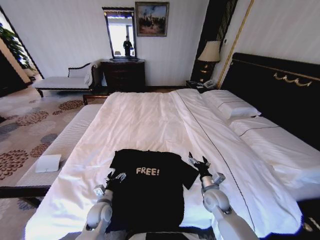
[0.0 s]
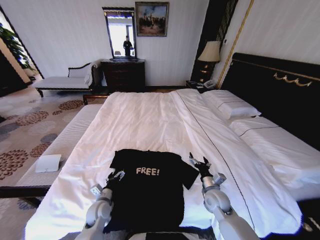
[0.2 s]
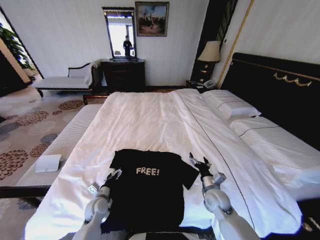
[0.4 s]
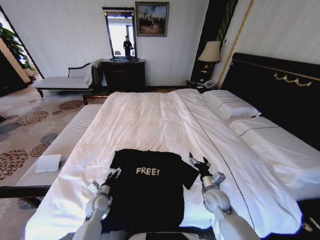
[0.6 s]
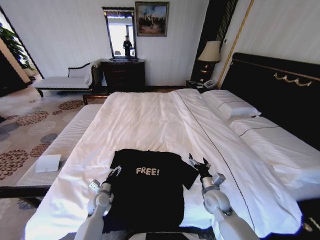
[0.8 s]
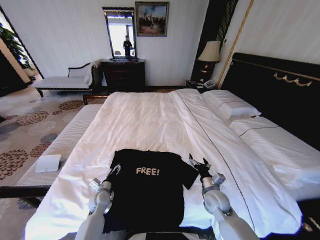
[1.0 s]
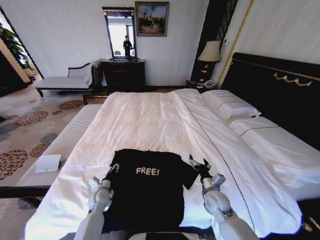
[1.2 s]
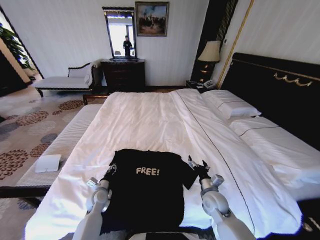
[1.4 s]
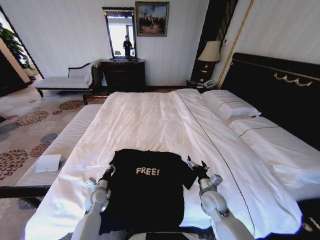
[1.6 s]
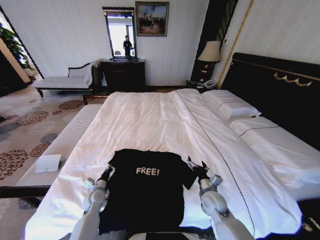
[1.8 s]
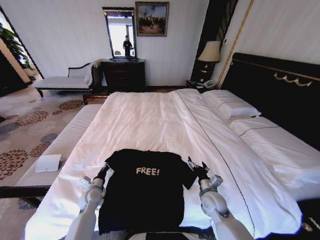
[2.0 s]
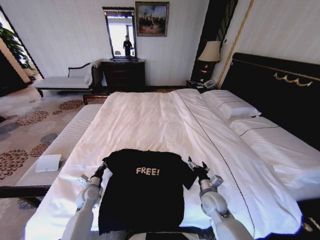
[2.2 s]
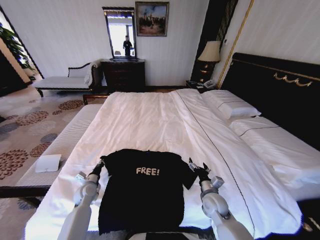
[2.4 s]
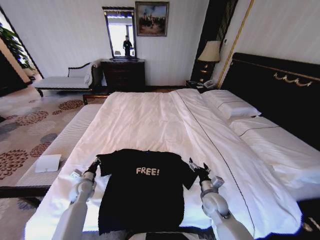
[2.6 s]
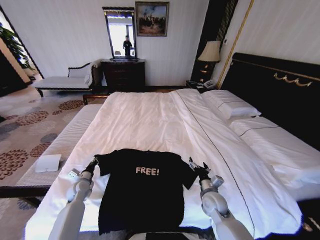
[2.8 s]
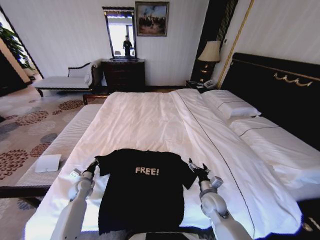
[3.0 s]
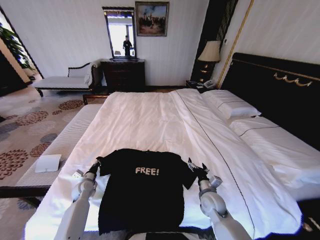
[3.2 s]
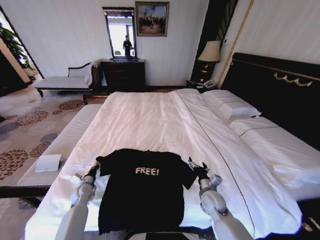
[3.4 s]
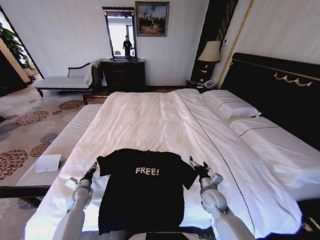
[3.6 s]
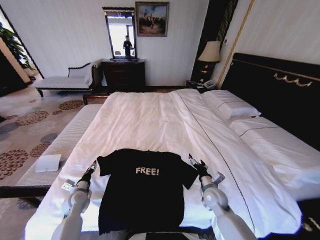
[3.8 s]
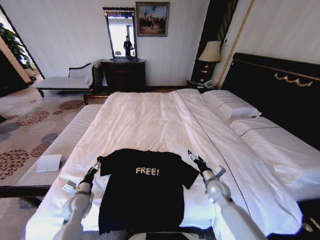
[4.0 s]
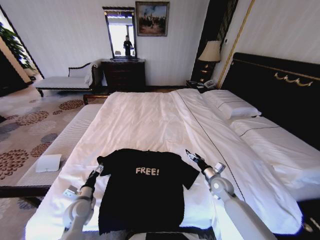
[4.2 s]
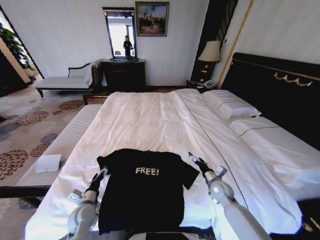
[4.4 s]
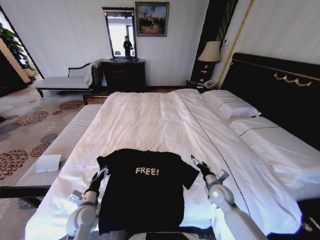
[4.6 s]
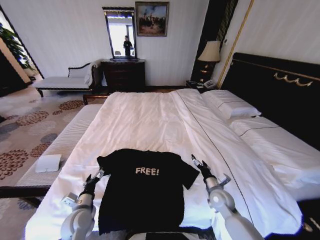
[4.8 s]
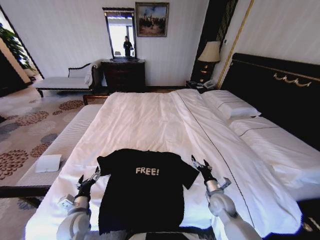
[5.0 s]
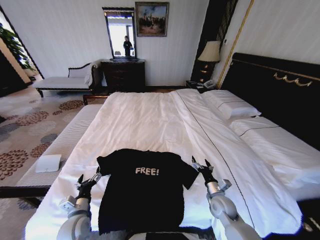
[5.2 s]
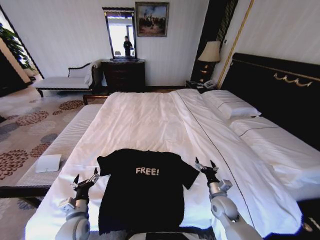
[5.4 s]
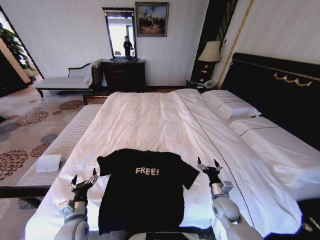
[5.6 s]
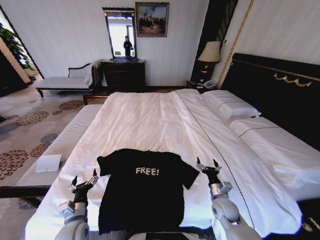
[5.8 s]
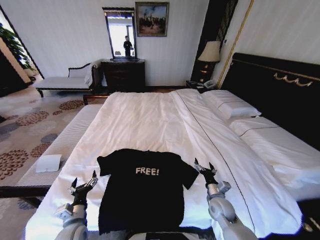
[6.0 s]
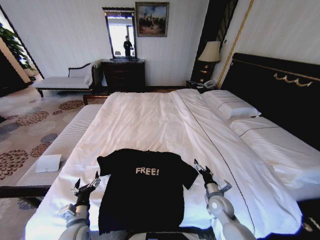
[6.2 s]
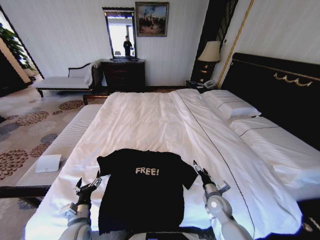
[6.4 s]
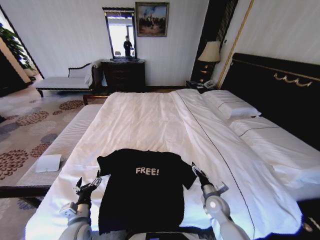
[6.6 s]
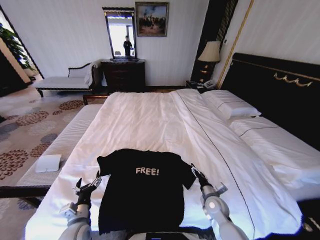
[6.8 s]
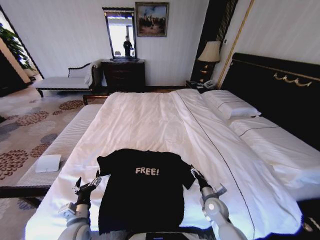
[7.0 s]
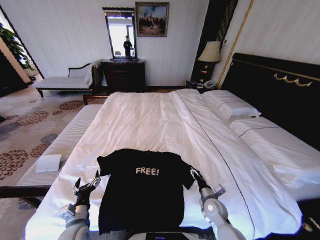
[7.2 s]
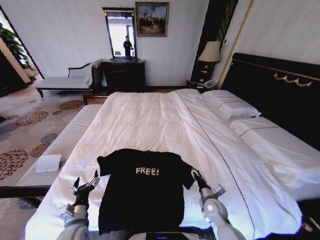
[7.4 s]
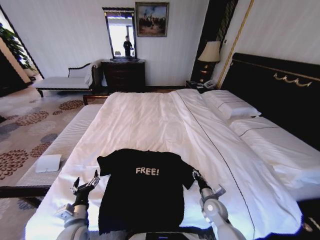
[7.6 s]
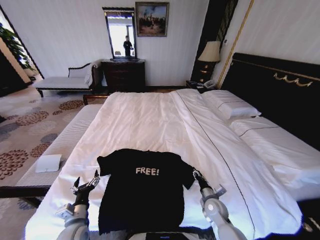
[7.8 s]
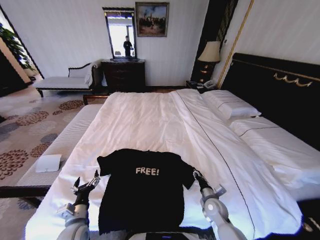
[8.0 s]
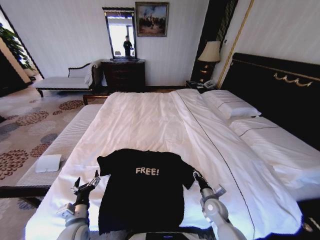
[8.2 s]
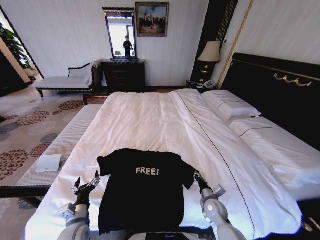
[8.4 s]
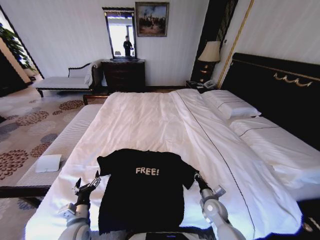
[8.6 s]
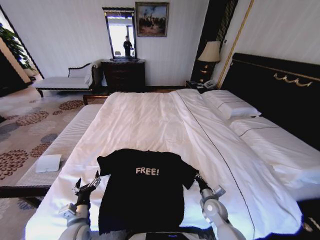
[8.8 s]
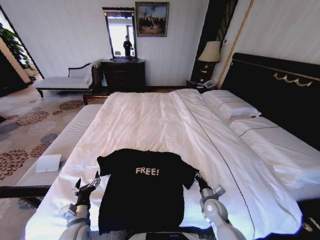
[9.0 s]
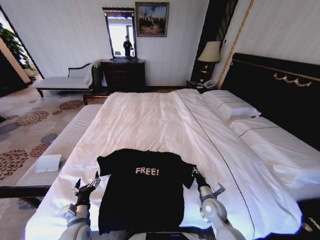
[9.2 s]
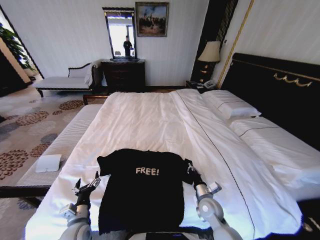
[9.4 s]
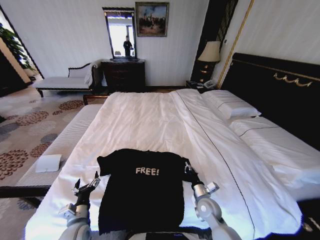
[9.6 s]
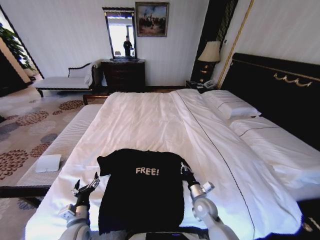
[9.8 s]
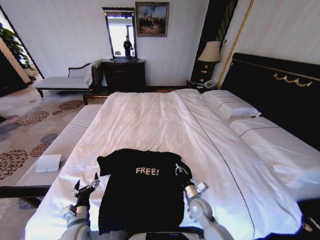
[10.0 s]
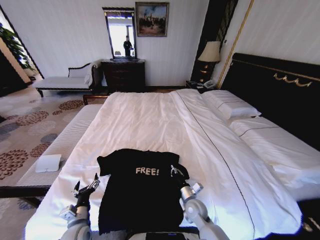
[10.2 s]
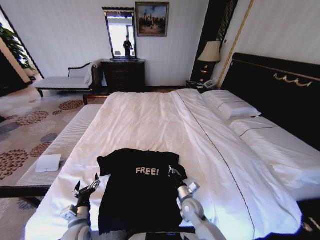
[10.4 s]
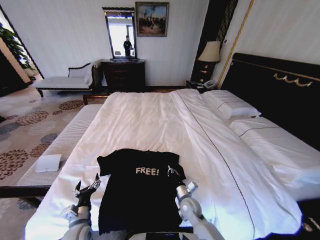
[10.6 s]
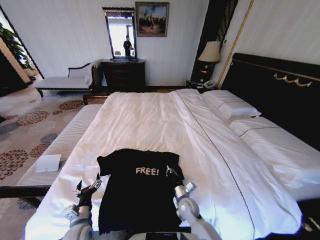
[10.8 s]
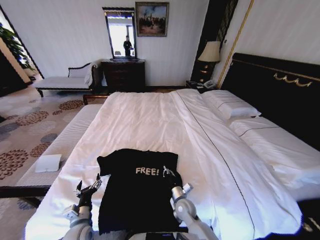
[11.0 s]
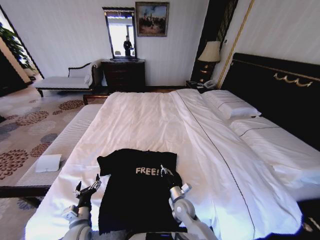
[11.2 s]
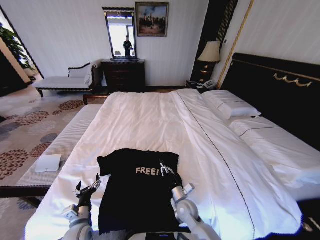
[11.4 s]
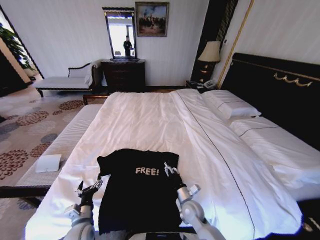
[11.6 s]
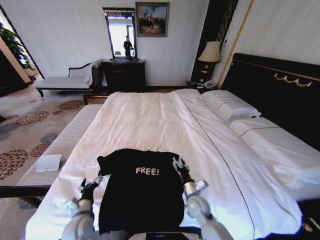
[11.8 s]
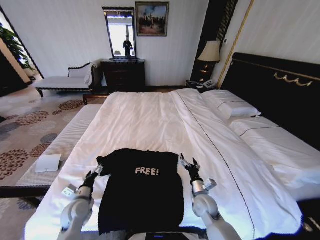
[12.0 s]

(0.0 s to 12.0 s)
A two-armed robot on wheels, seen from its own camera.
Task of the whole recording: Fold the clothes on the bed.
0.0 s - 1.6 s: The left gripper heads forward, covering roughly 5 cm, and closes up.
1.6 s - 3.0 s: The left gripper is displaced to the left by some 10 cm.
3.0 s - 4.4 s: The right gripper moves to the right and forward, approximately 10 cm, while the left gripper shifts about 15 cm backward and to the right, and opens up.
4.4 s - 6.0 s: The two grippers go about 5 cm backward.
6.0 s - 7.6 s: The right gripper closes its fingers.
9.0 s - 10.4 s: The right gripper travels to the left by some 10 cm.
10.4 s - 12.0 s: The right gripper changes place by approximately 5 cm, and opens up. The left gripper moves forward, approximately 10 cm.

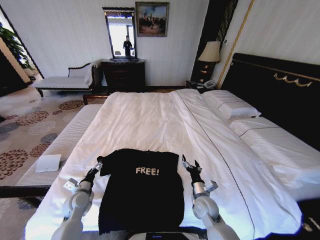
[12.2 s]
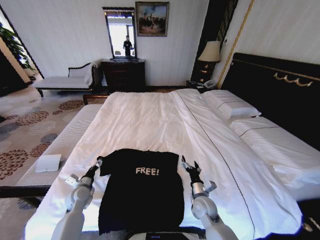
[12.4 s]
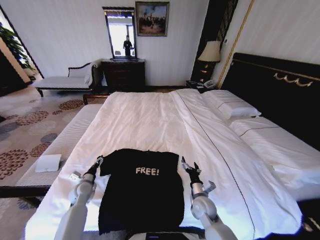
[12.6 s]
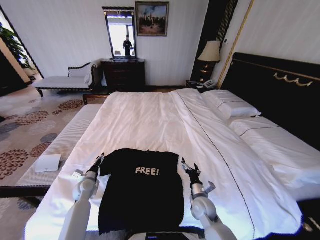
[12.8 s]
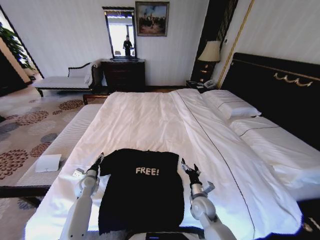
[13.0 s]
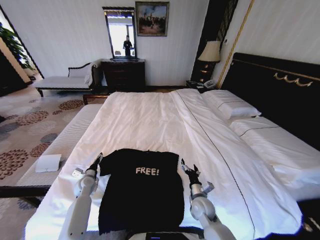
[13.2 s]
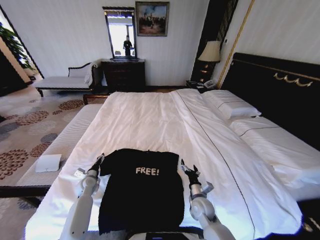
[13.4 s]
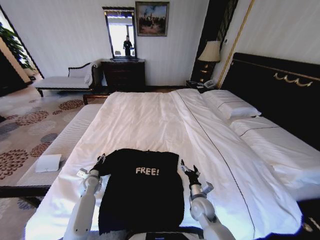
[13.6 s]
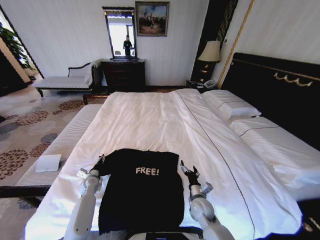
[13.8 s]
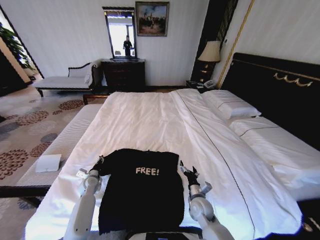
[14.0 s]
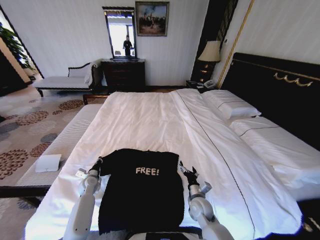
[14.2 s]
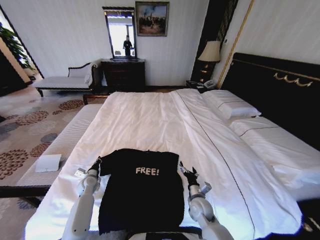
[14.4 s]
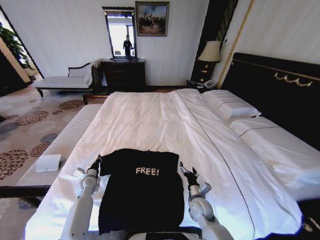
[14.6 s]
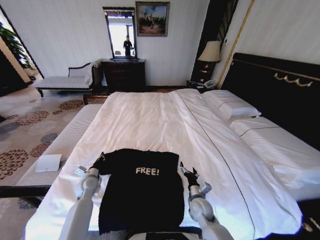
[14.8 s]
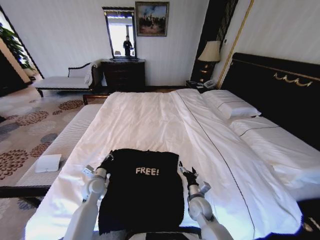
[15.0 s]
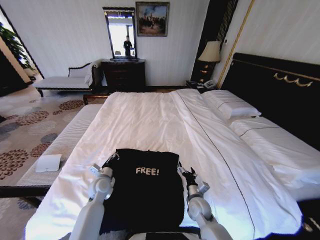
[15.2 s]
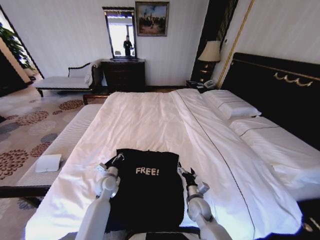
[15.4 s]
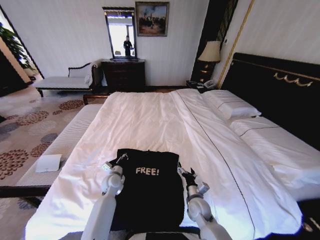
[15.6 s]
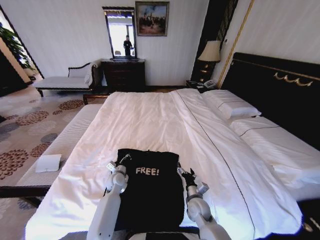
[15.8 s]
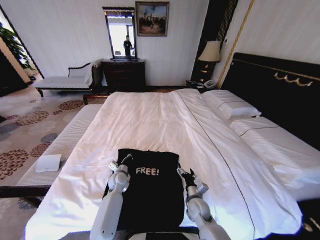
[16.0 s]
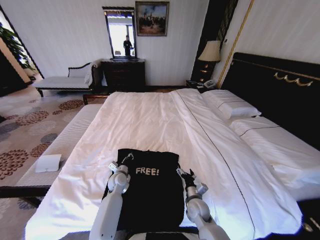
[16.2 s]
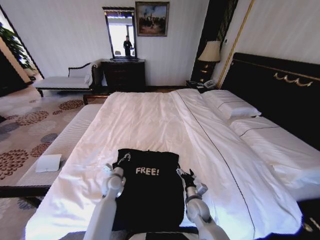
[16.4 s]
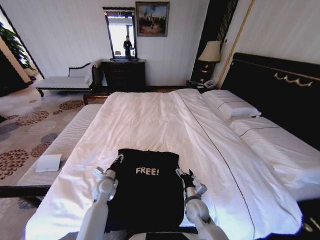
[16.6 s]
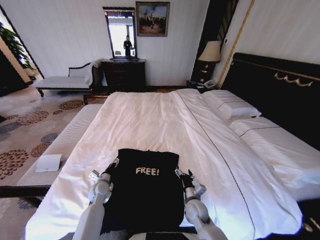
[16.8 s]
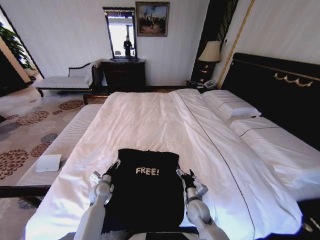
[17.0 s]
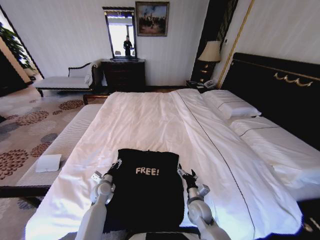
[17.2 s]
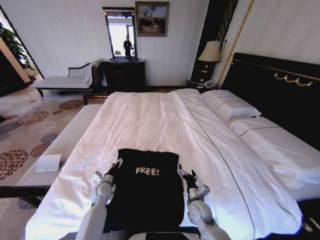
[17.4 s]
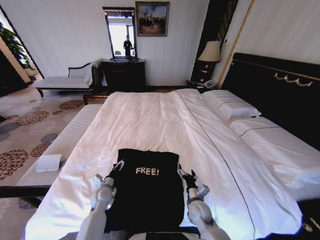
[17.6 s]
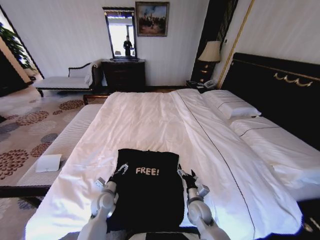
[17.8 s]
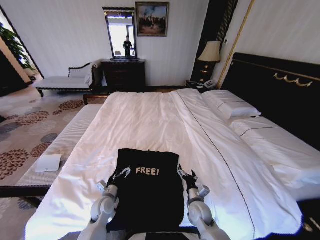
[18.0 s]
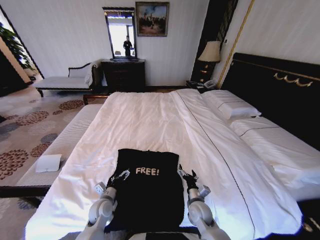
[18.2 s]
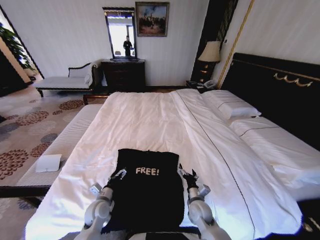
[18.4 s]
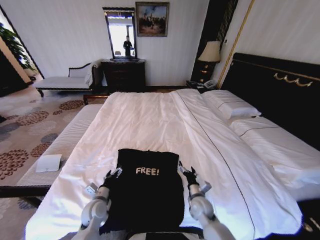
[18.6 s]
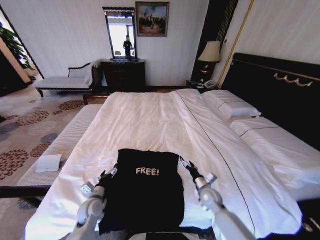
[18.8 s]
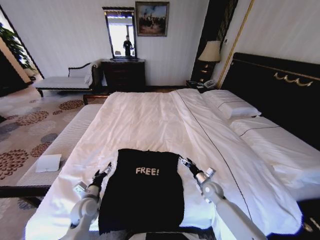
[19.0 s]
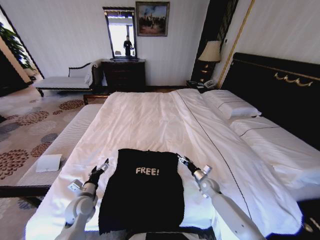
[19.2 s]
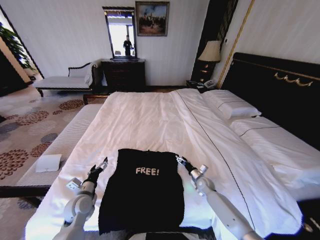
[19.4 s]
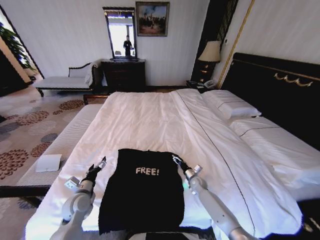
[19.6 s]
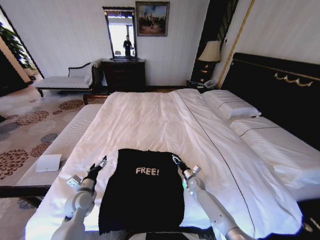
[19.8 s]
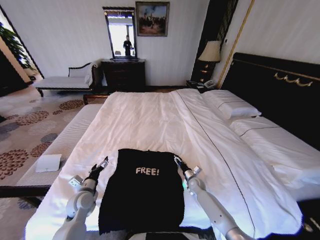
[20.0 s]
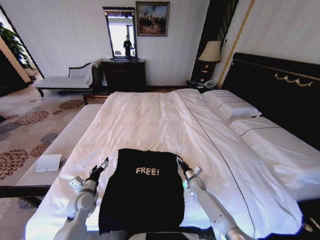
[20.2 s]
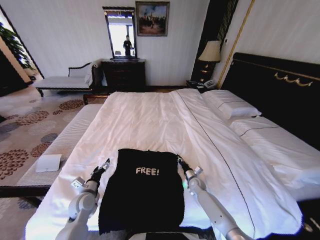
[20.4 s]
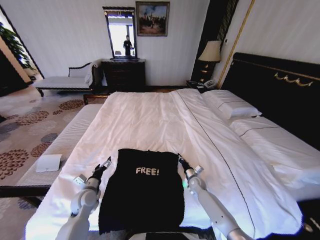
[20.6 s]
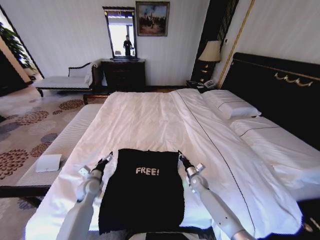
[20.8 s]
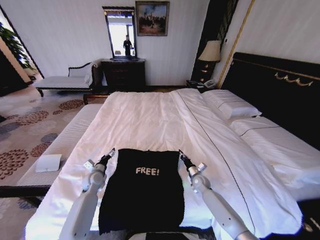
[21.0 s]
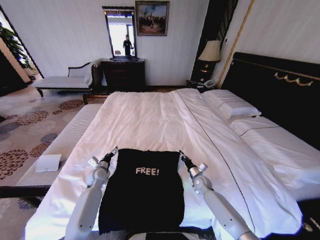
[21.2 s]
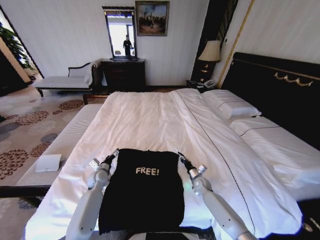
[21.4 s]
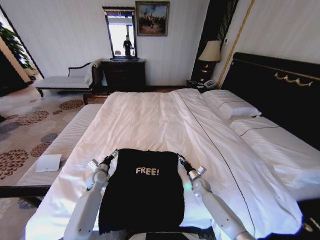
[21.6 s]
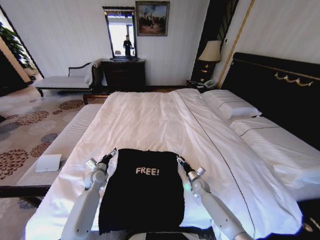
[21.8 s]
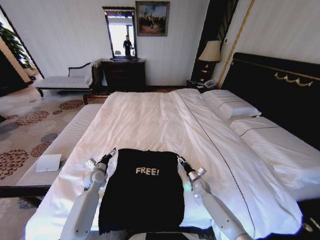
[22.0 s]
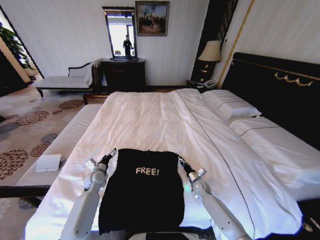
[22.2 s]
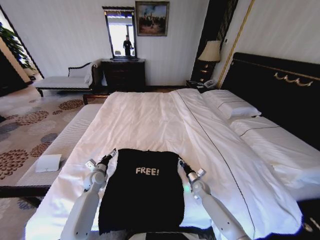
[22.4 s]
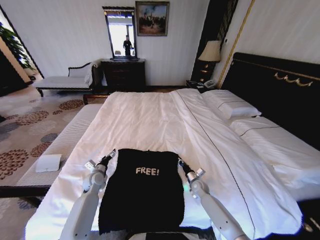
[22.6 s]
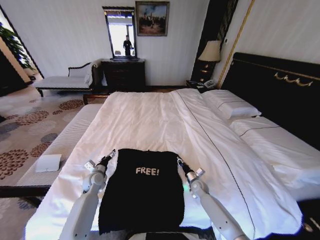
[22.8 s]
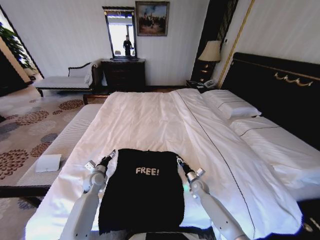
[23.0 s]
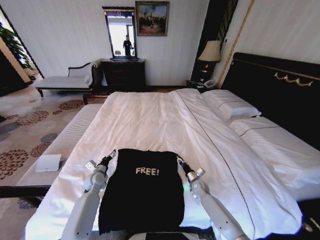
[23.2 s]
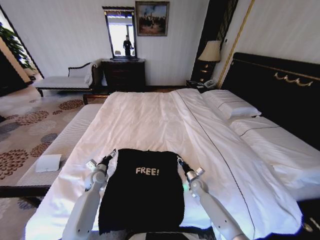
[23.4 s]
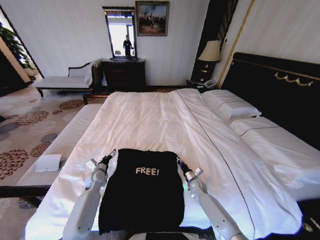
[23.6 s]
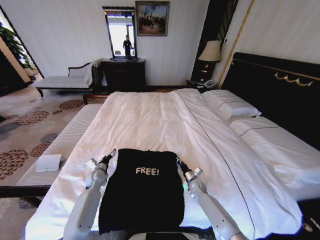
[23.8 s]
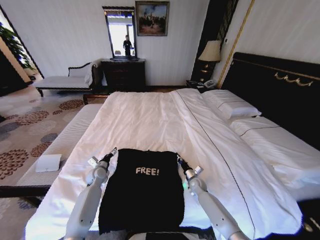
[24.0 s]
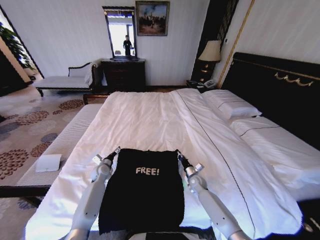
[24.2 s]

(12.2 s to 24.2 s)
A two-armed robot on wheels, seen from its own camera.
Task of the whole recording: Fold the clothes on the bed.
12.2 s - 13.8 s: The left gripper travels forward and downward by roughly 10 cm.
13.8 s - 15.2 s: The left gripper moves to the right and upward, about 10 cm, and closes.
15.2 s - 16.6 s: The left gripper opens its fingers.
16.6 s - 18.2 s: The left gripper shifts about 10 cm backward, and opens up.
18.2 s - 19.8 s: The right gripper shifts some 15 cm forward and downward, while the left gripper shifts about 10 cm to the left and upward.
19.8 s - 21.2 s: The right gripper closes up. Meanwhile the left gripper travels forward by roughly 15 cm.
21.2 s - 22.6 s: The right gripper opens, then closes again.
22.6 s - 24.2 s: The right gripper opens, then closes once more. Meanwhile the left gripper moves forward, about 5 cm.
